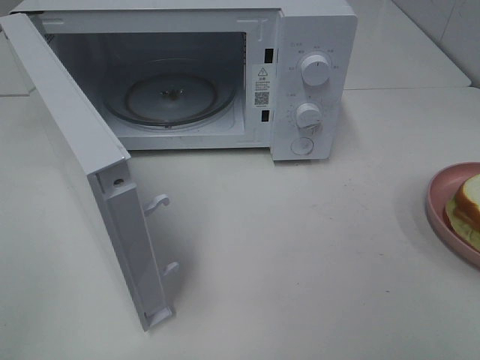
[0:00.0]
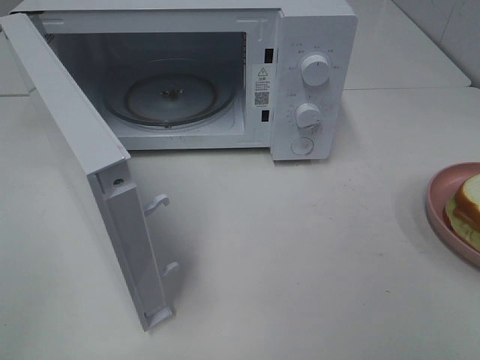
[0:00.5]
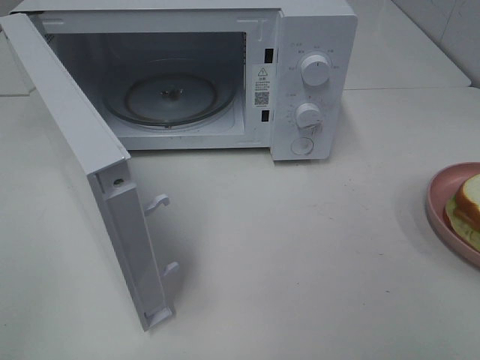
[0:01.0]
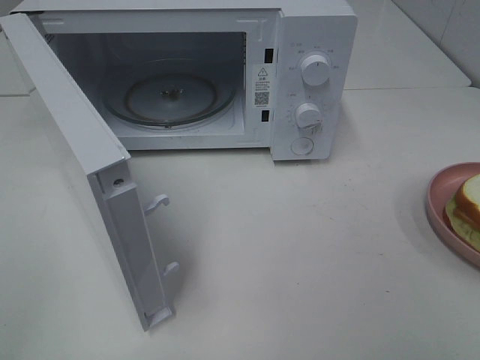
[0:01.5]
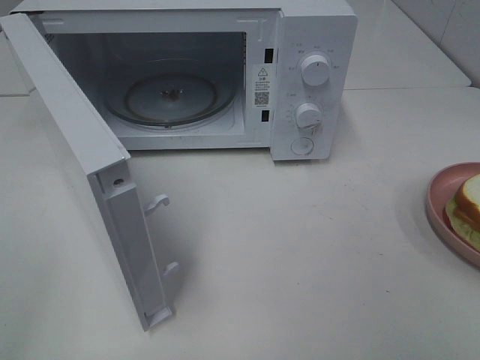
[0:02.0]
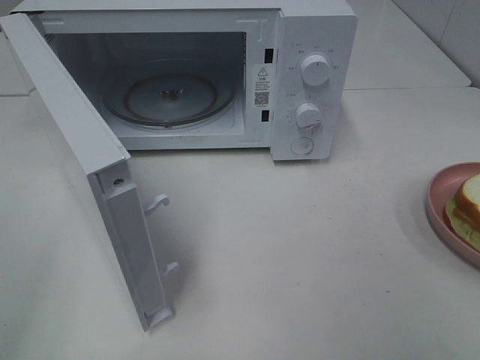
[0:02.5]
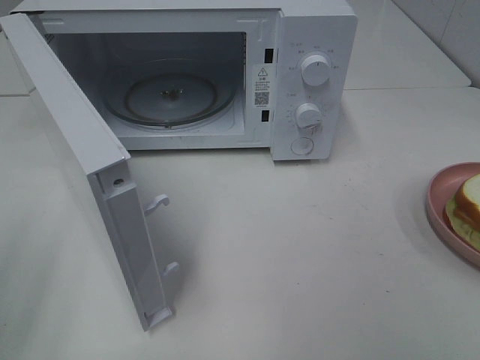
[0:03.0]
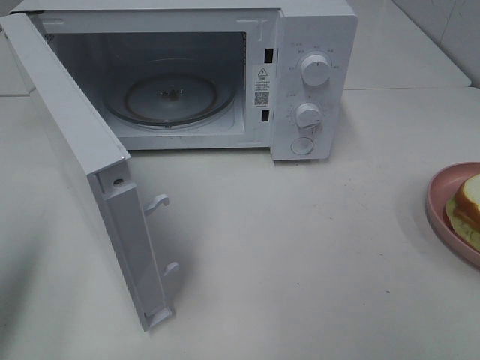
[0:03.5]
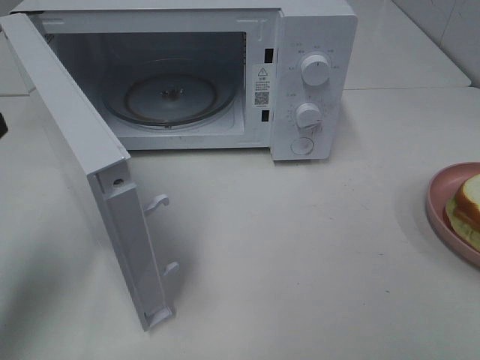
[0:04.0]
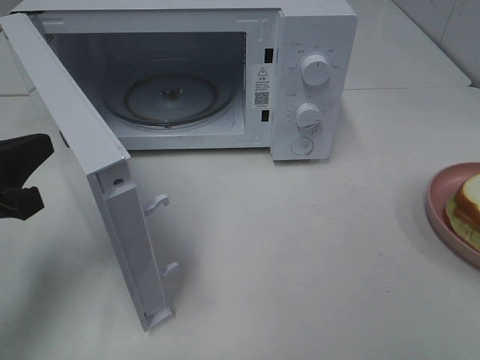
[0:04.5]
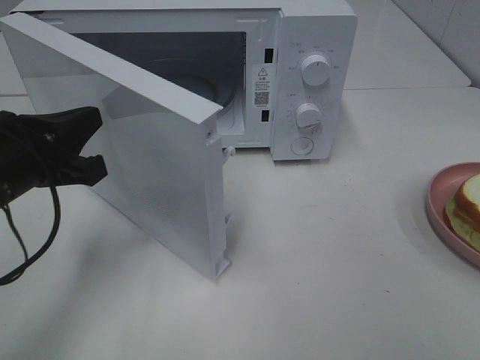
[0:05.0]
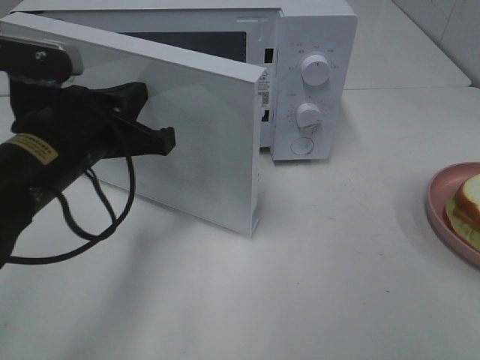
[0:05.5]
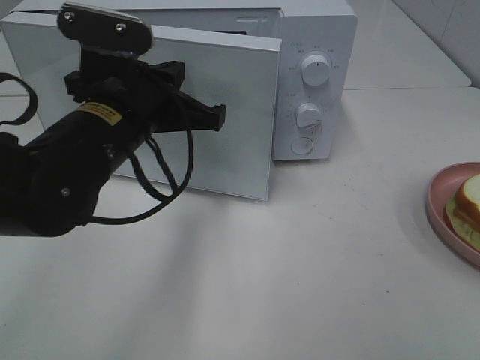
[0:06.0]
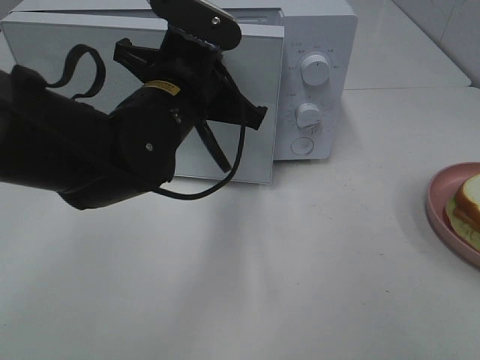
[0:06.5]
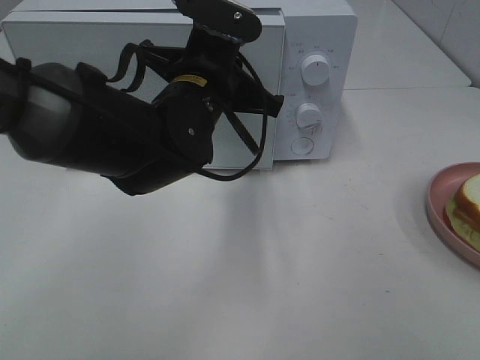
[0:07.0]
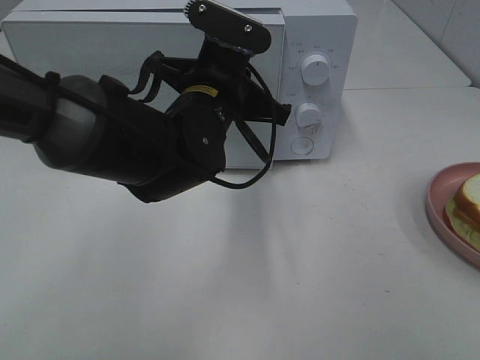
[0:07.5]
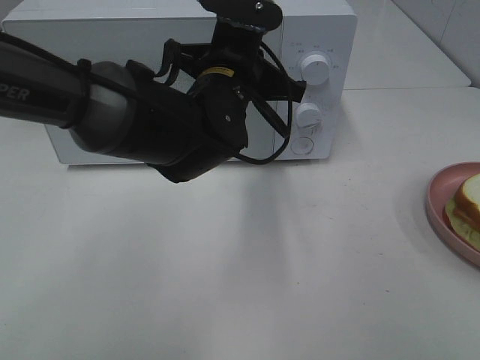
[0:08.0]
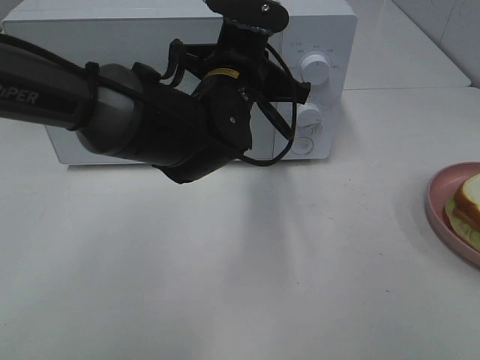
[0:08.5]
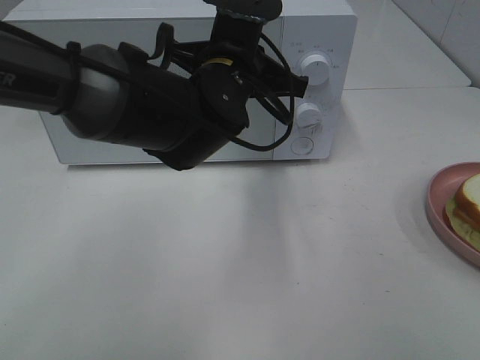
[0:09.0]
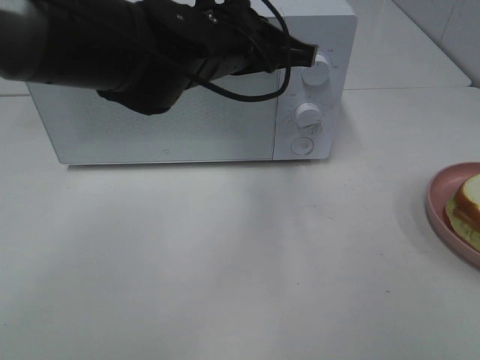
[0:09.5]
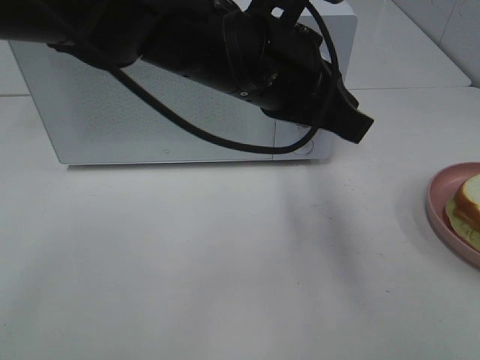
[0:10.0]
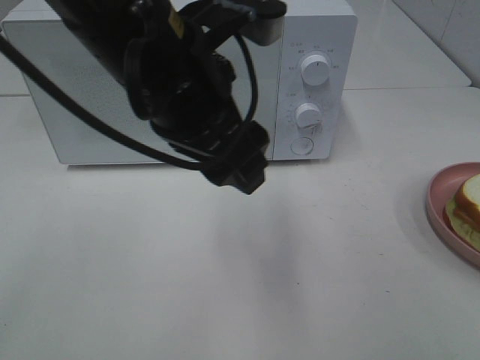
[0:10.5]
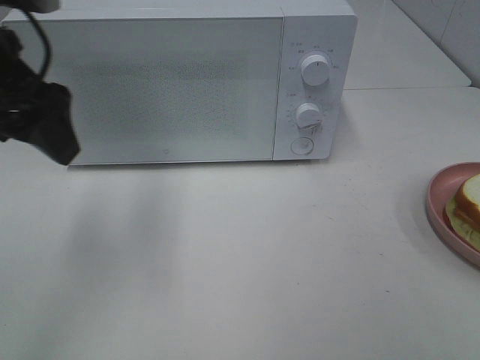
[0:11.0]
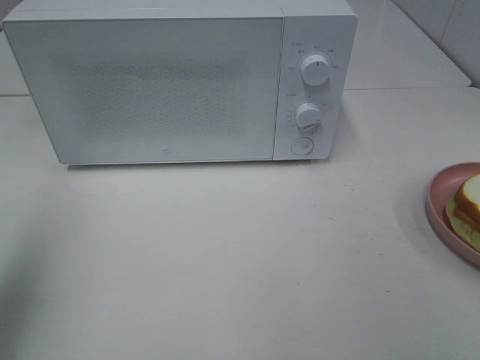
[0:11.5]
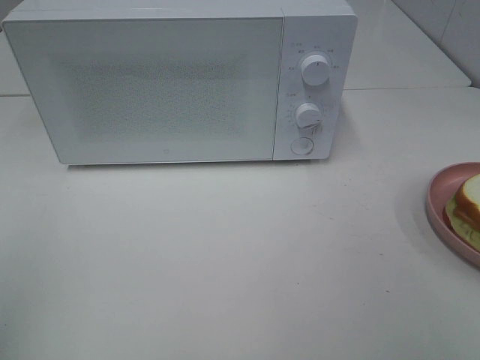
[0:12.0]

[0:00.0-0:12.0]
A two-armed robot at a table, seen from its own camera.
Task of the whole recording: Heat Sandwich.
Step, 0:00.0 to 0:09.5: Left hand: close the microwave door.
0:02.0 to 0:04.0: The left gripper moves forward and downward, about 20 cm, and closes its fingers.
0:04.0 to 0:06.0: The left gripper travels to the right and forward by some 20 cm.
0:06.0 to 0:08.0: The left gripper moves to the right and forward, some 10 cm.
0:08.0 to 0:10.0: The left gripper heads backward and upward, covering roughly 10 cm.
0:10.0 to 0:12.0: The left gripper heads to the left and backward, covering about 40 cm, and opens up.

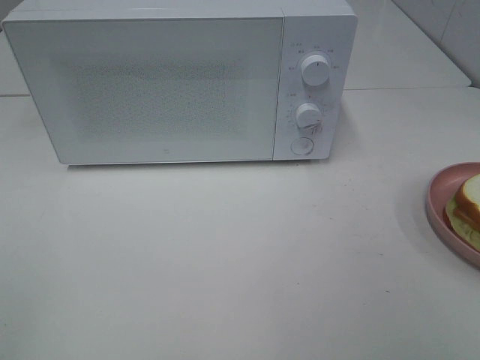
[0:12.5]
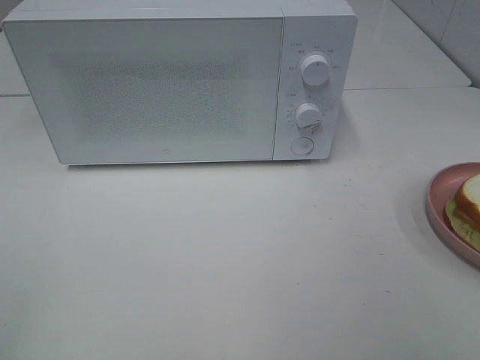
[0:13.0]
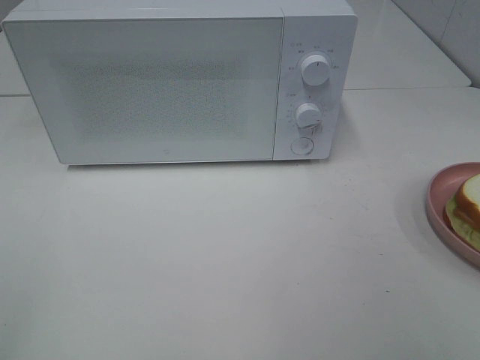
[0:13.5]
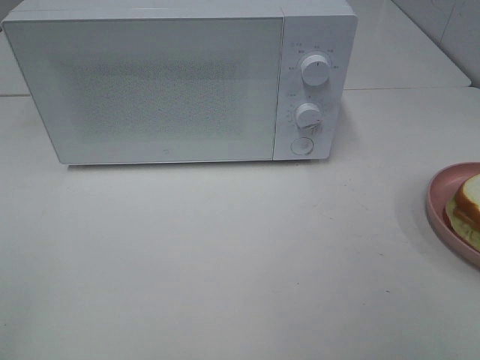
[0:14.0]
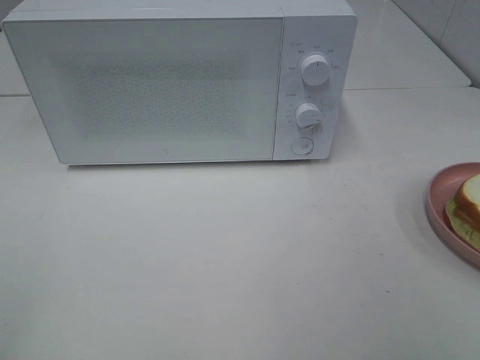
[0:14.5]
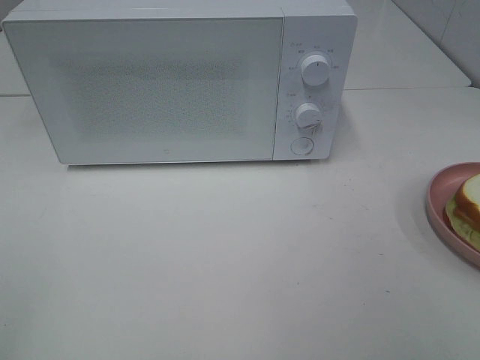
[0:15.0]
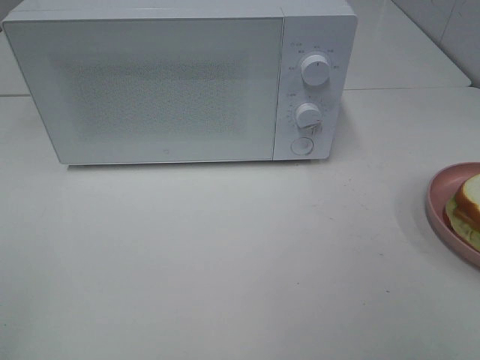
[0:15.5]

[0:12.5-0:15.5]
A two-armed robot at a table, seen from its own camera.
Task of the whole recording: Heat Sandwich.
0:12.5 to 0:15.5: Both grippers stay about where they are.
